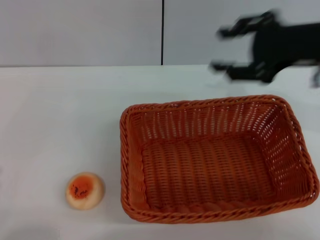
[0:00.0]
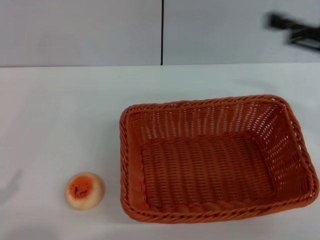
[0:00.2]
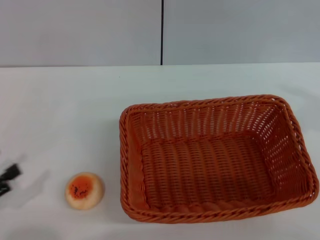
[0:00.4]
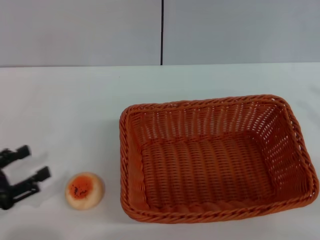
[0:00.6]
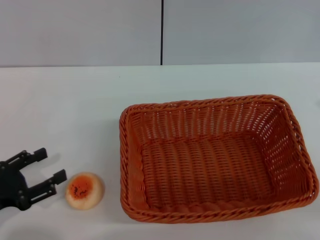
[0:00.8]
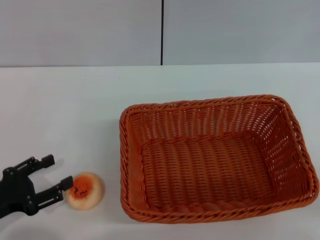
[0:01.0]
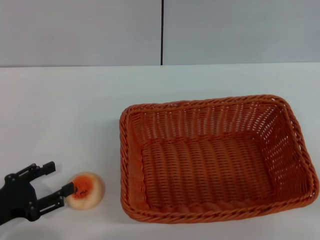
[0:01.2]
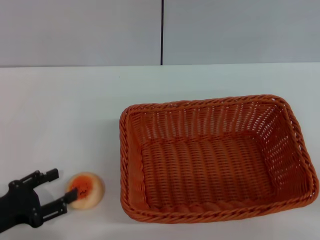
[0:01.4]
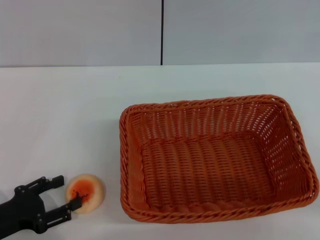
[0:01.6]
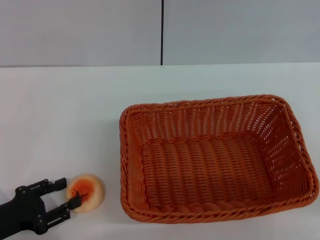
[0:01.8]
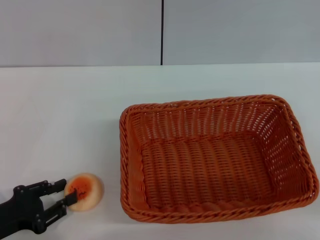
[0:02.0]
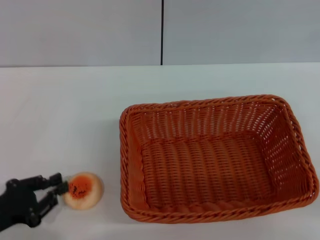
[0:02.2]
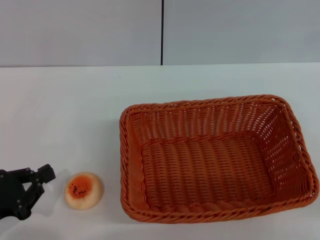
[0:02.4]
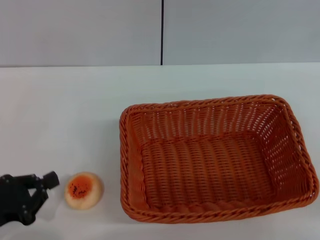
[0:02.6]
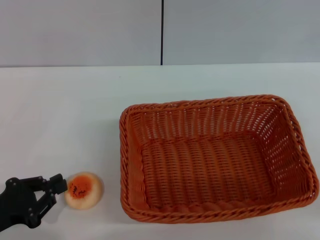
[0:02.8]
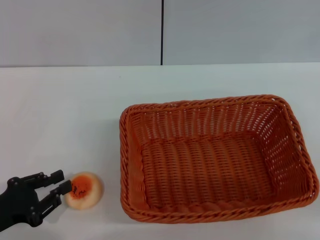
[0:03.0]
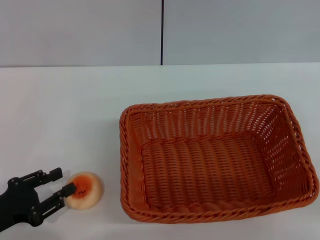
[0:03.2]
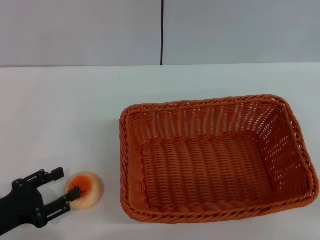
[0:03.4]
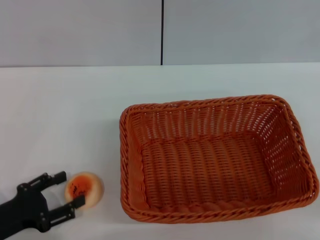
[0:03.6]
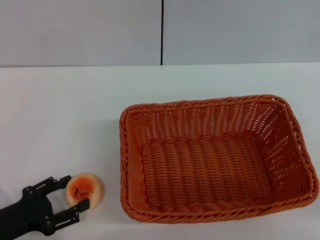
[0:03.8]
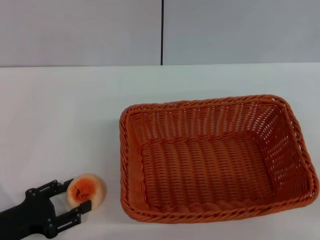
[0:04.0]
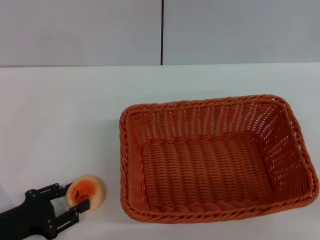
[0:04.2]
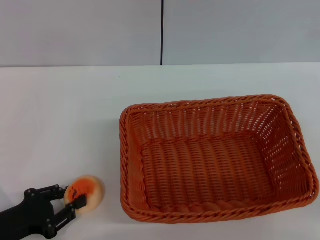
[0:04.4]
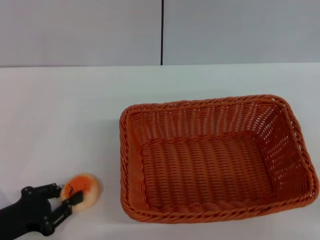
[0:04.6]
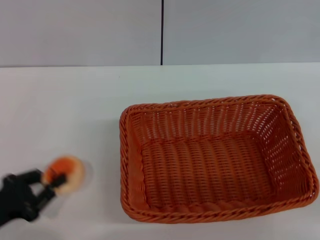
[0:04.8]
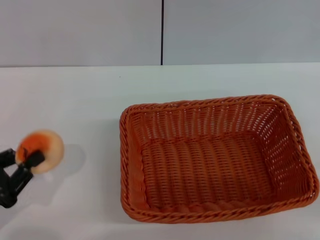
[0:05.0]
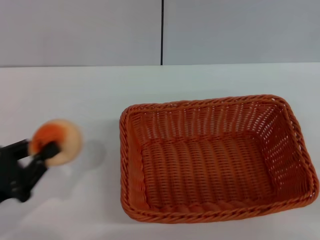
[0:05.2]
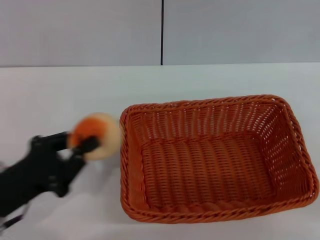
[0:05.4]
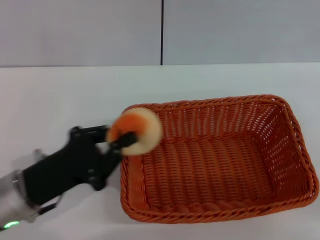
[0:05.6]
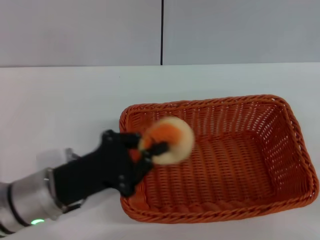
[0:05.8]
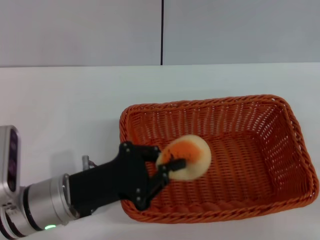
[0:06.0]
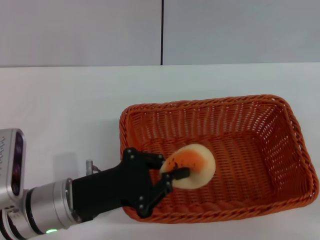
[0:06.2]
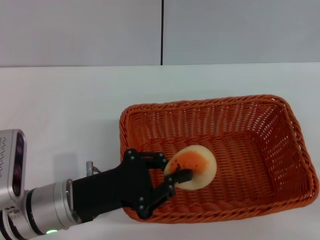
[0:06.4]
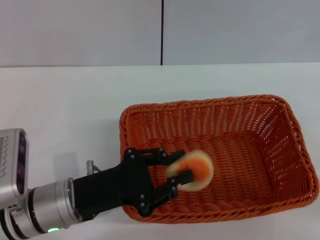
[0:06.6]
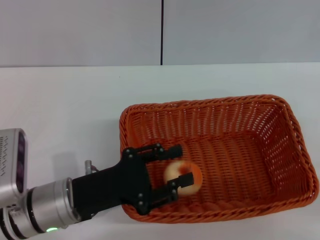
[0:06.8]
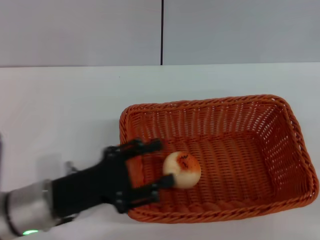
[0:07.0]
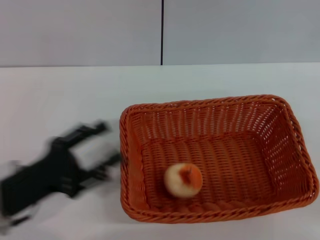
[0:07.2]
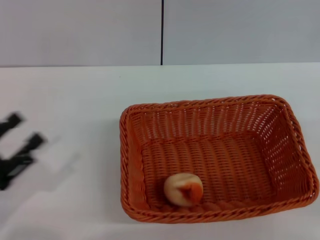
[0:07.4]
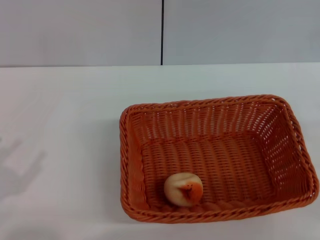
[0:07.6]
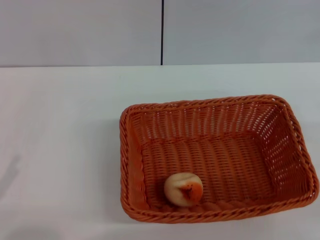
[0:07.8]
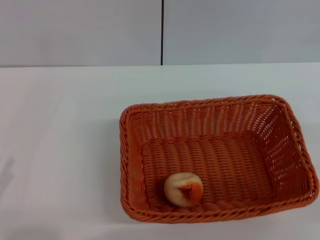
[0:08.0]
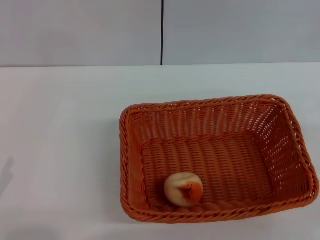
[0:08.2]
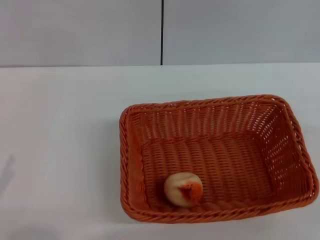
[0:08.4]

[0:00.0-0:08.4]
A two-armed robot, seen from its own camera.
Step, 0:00.0 to 0:04.6: Pick up the egg yolk pastry with the left gripper.
Step, 0:04.8 to 0:07.0: Place the egg yolk pastry into the basket with the left gripper.
0:00.0 to 0:01.4: The right gripper moves to the right and backward, roughly 20 cm. The left gripper moves forward and to the right, roughly 10 cm.
0:01.4 to 0:02.8: The left gripper closes up.
0:02.8 to 0:04.2: The left gripper opens its fingers.
0:04.2 to 0:05.6: The left gripper shifts approximately 10 cm to the right, and closes.
0:05.6 to 0:07.0: The left gripper opens its fingers.
0:07.0 to 0:08.4: The left gripper is displaced to the left and backward by roughly 20 cm.
